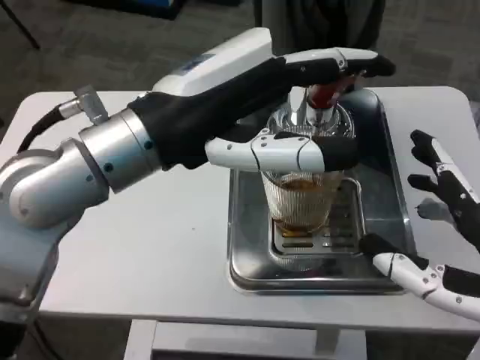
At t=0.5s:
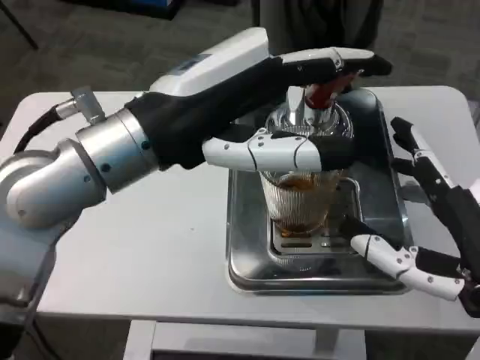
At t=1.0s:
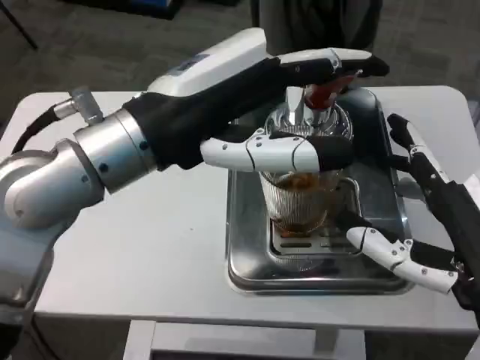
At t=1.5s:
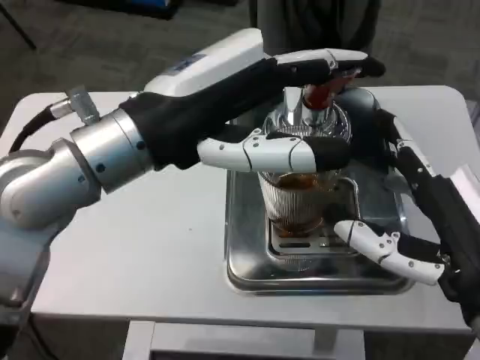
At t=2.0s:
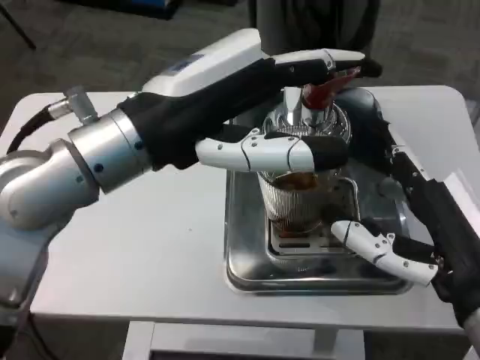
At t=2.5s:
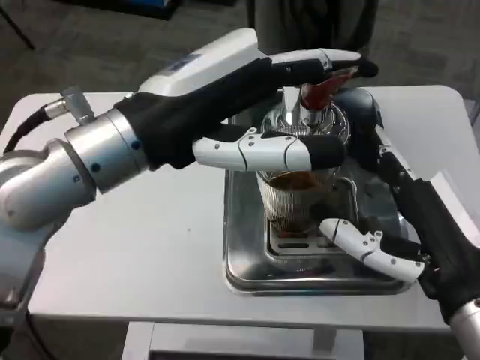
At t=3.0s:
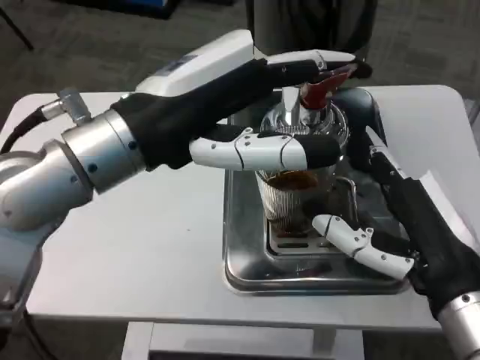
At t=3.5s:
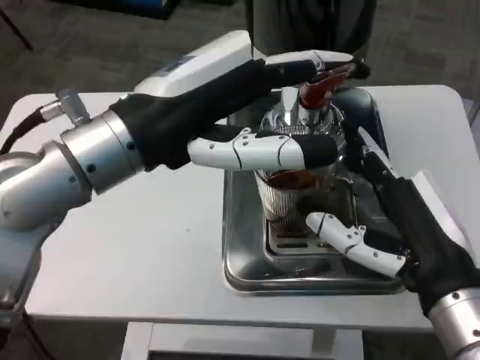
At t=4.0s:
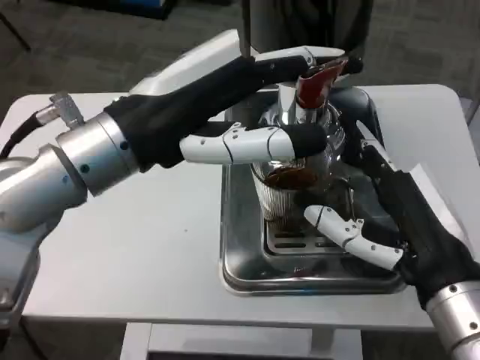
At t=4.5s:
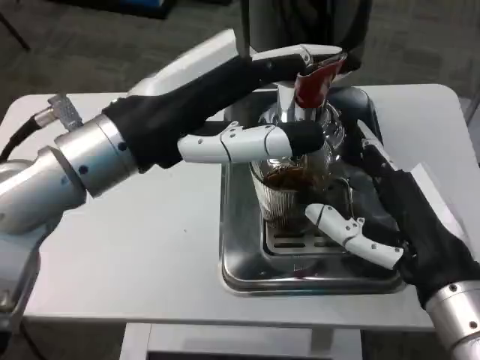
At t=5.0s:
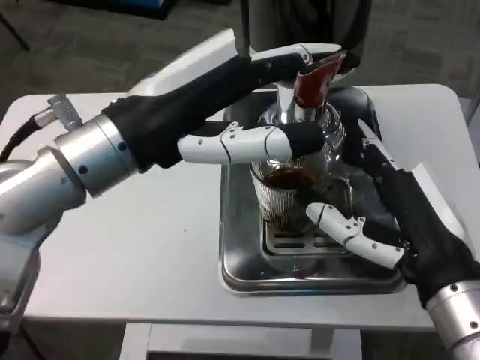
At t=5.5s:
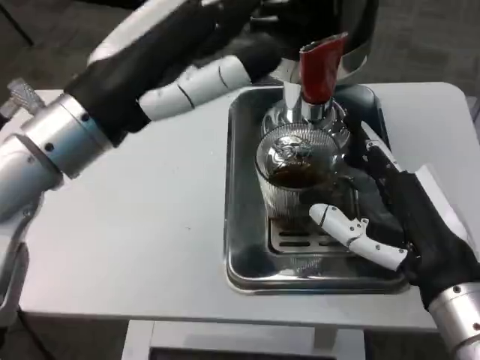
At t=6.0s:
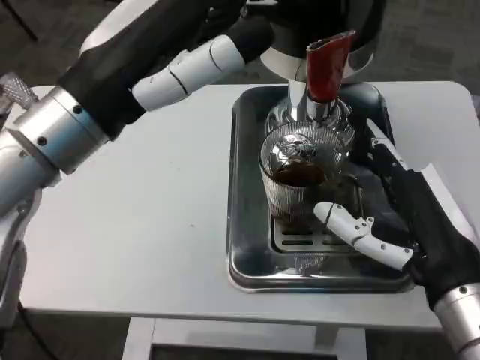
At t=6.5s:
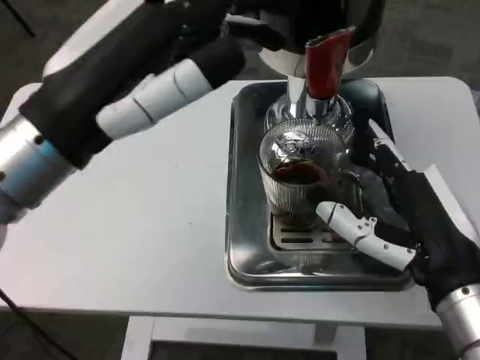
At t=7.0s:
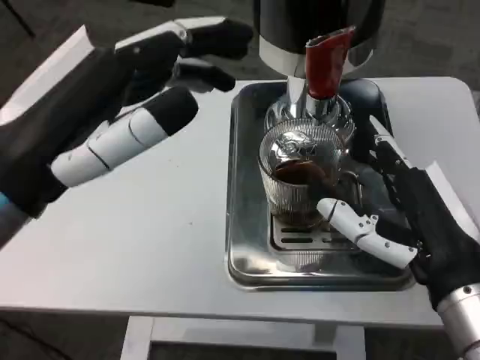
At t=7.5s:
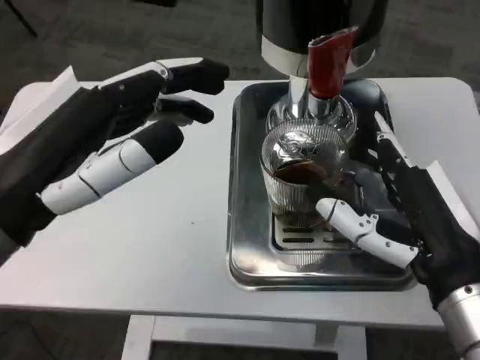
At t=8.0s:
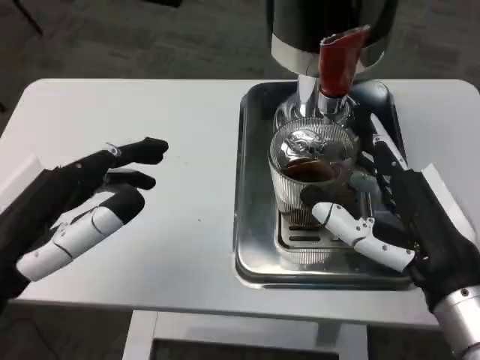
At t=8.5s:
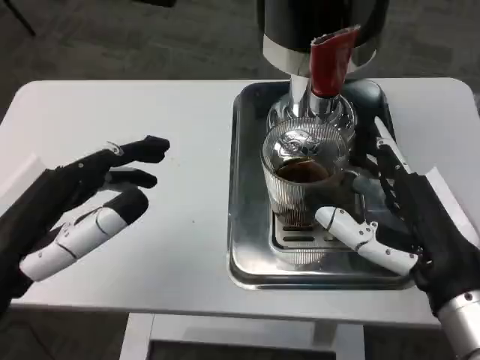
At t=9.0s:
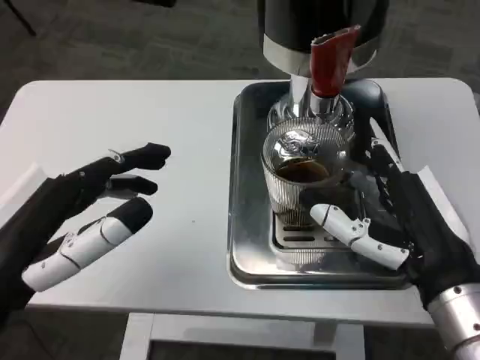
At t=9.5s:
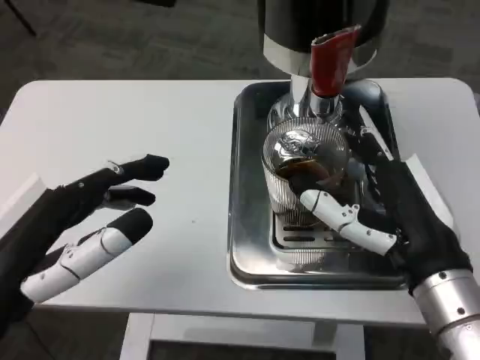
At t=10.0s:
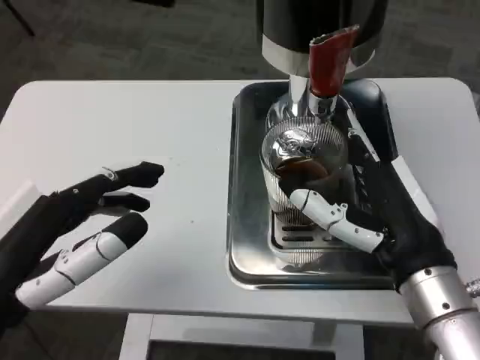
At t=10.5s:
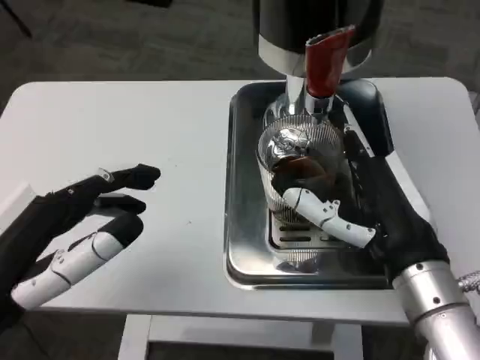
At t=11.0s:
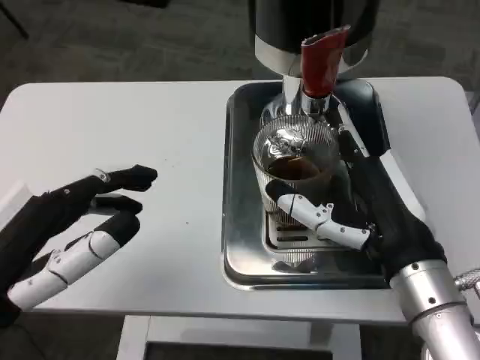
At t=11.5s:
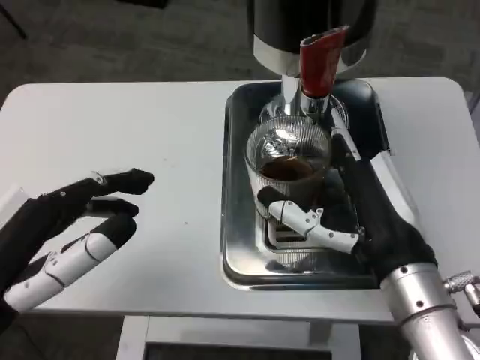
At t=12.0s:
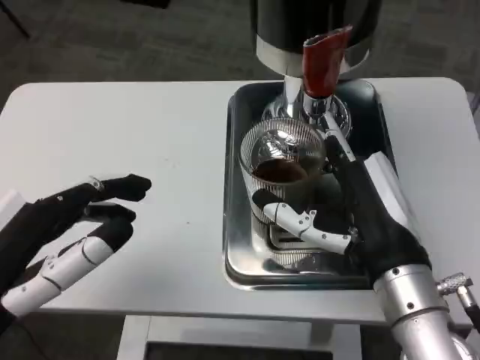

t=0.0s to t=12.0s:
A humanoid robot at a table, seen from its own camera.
Task of the whole recording: Grasp the cup under the faucet to collect the drink, then remove the cup.
t=6.0s to t=8.0s: The left hand travels downward, backward and to the left by approximately 15 cm.

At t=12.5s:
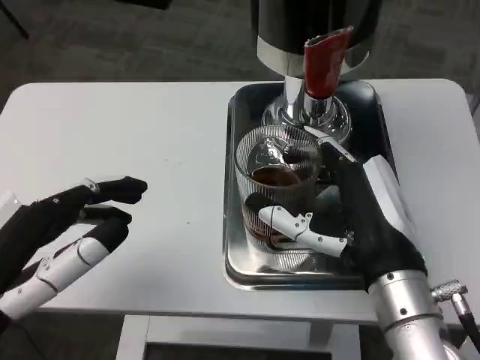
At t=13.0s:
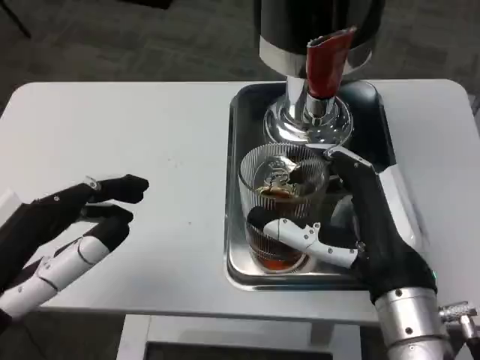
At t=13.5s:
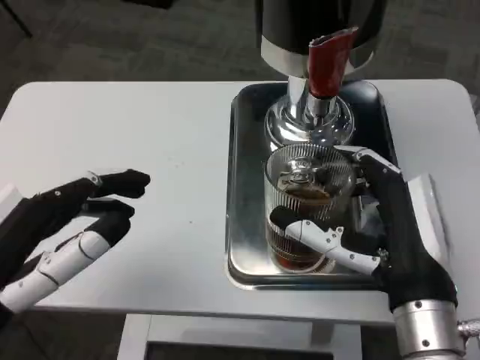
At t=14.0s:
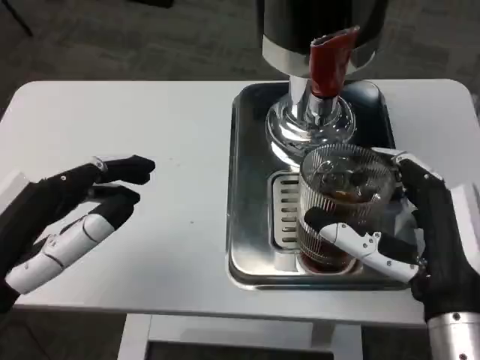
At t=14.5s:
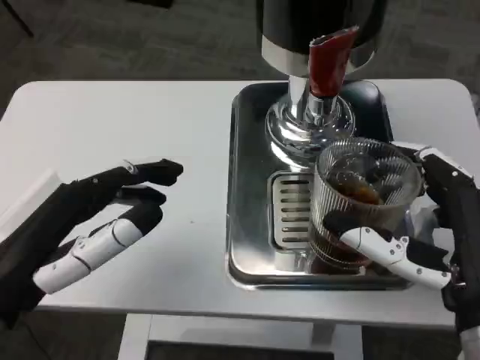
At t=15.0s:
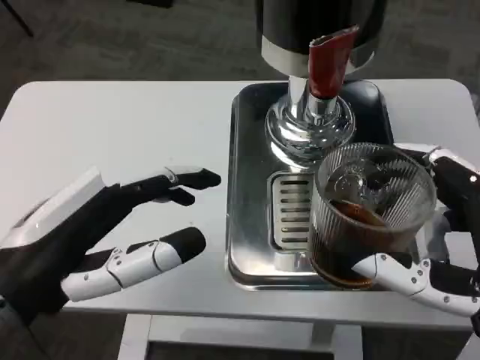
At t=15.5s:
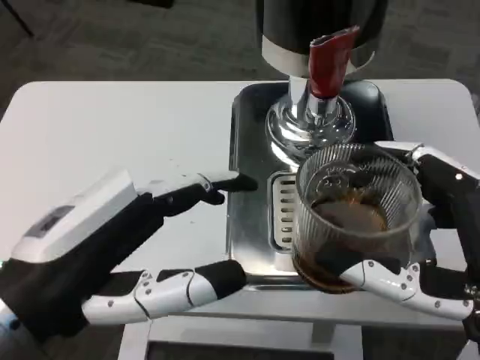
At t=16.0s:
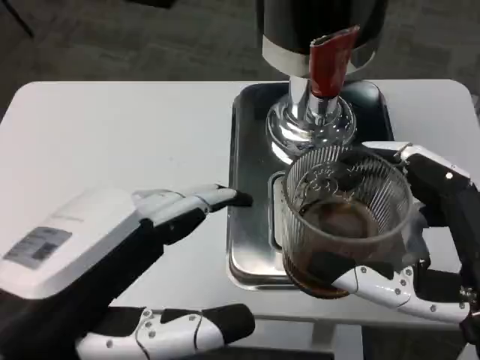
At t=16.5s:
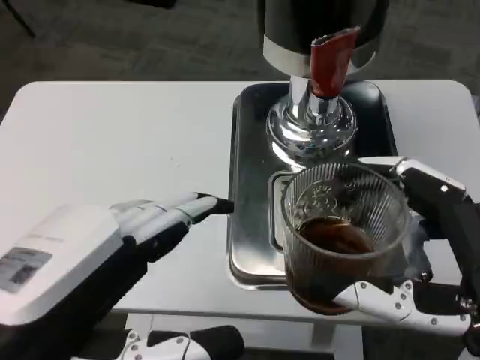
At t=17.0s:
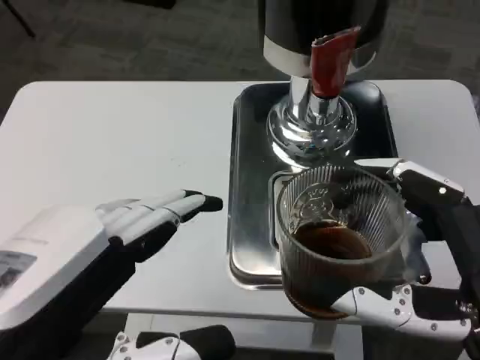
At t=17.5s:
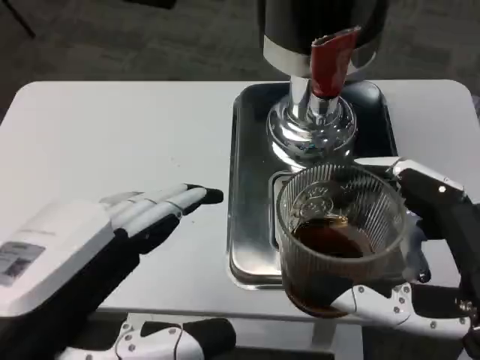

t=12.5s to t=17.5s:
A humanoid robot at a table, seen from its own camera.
Task of the whole recording: Grasp the cup under the faucet to collect the drink, then remove the cup.
t=12.5s to t=15.0s: The right hand heads backward and to the right, covering roughly 10 cm.
t=15.0s to t=17.5s: The left hand goes roughly 5 cm backward.

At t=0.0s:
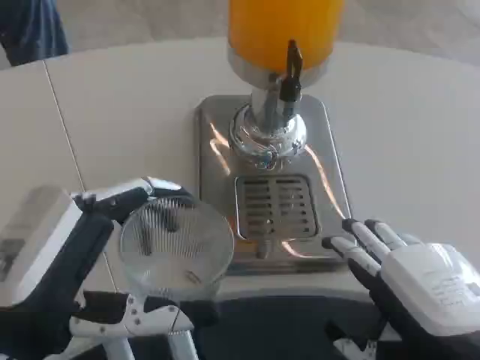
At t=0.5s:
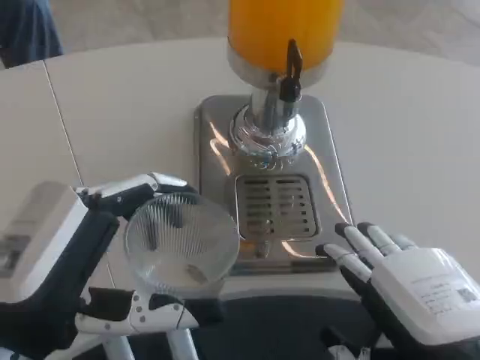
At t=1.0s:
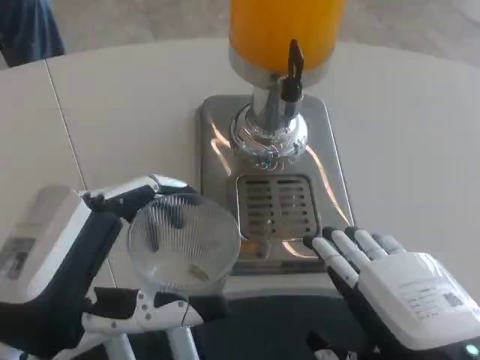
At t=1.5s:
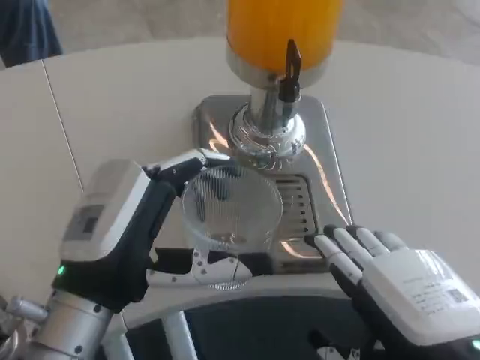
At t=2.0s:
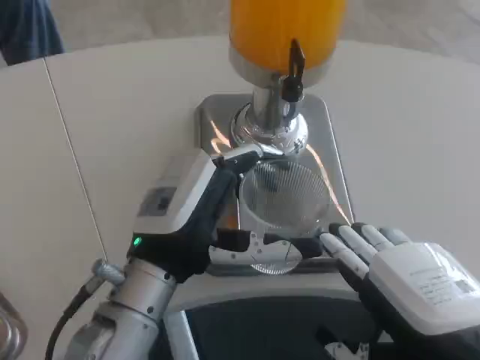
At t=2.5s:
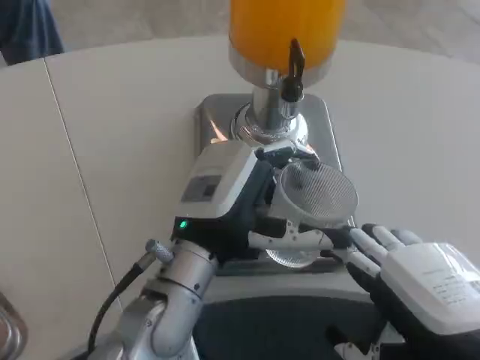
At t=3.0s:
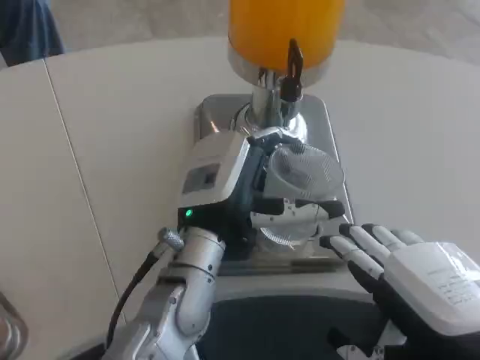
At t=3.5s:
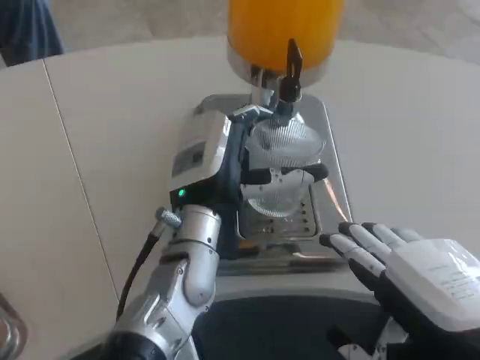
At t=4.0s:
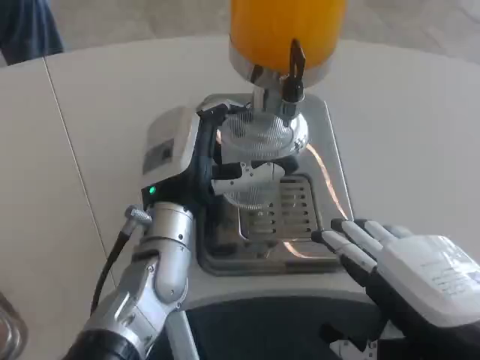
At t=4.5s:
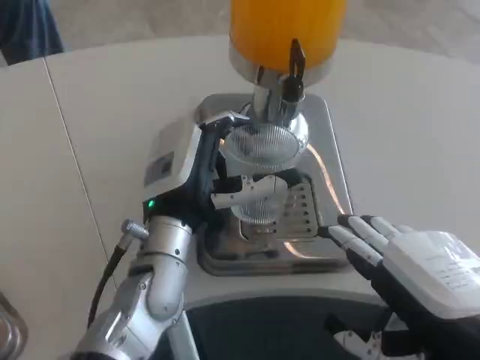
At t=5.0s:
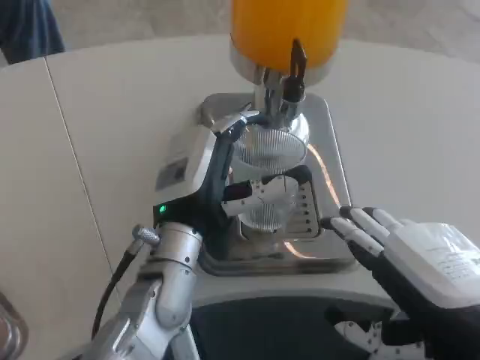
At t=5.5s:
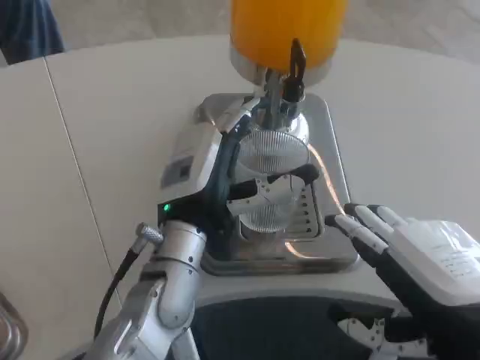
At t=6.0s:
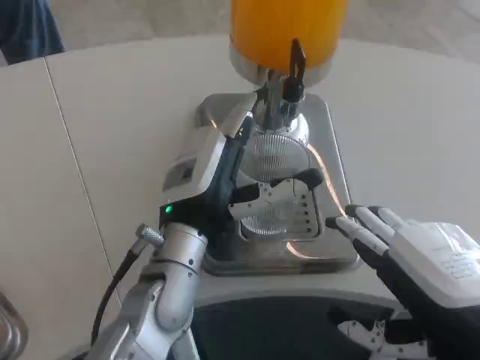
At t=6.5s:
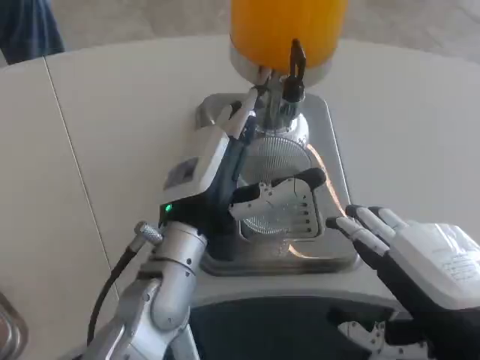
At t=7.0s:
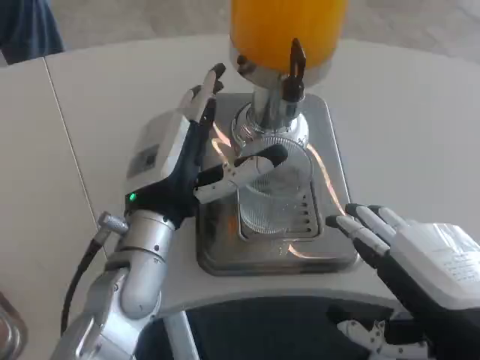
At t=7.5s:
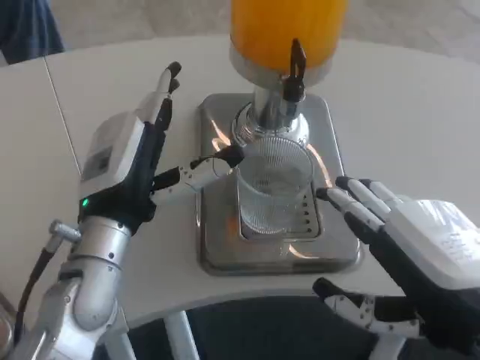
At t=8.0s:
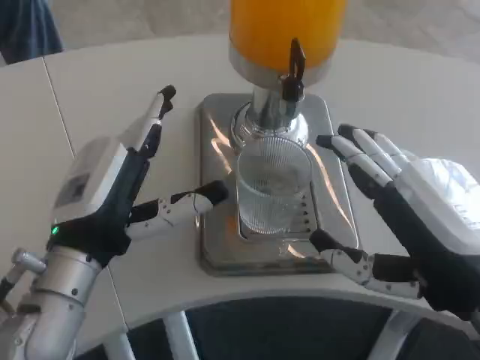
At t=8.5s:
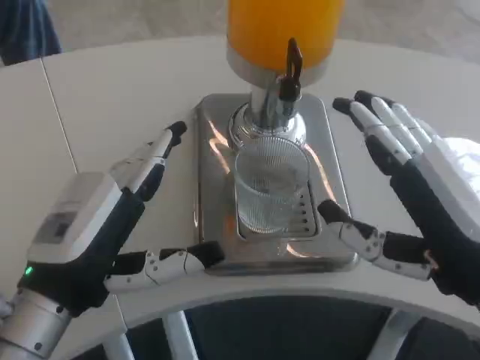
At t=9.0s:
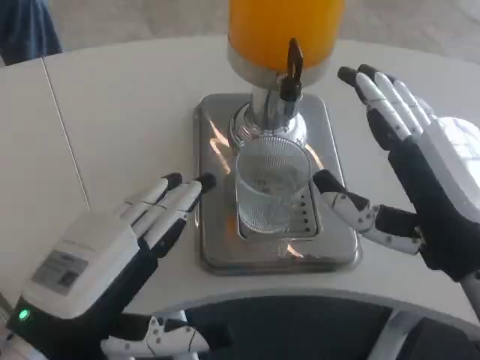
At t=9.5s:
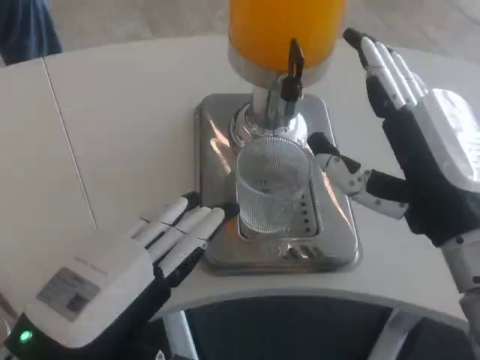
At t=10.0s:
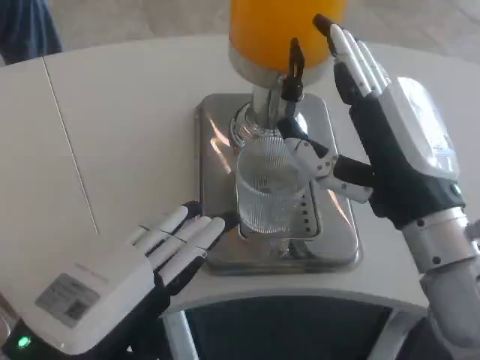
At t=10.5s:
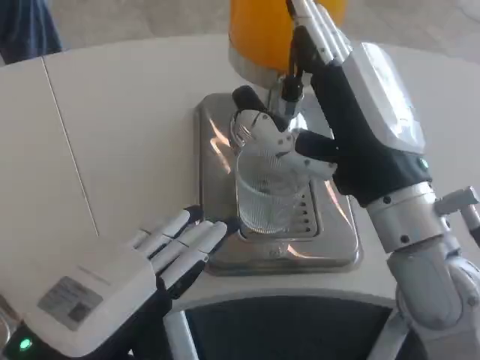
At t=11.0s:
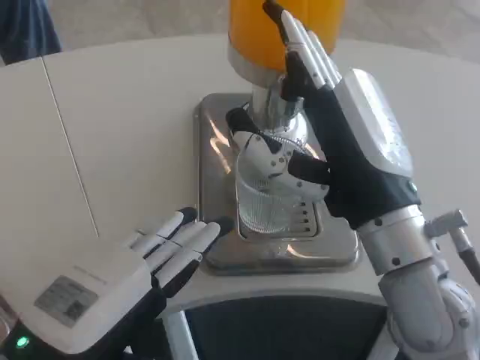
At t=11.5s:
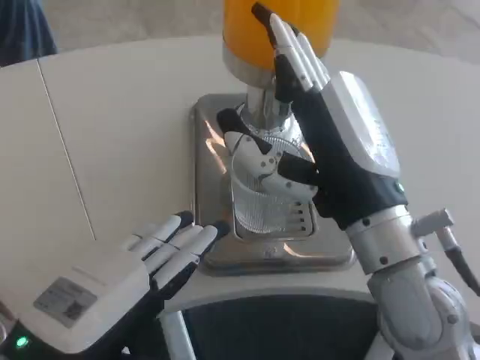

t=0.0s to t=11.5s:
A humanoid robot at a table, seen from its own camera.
Task of the whole recording: Grasp the cup under the faucet to collect the drink, then remove the cup.
t=0.0s to t=2.0s: The left hand heads forward and to the right, covering roughly 15 cm.
t=2.0s to t=4.0s: The left hand is displaced forward by approximately 10 cm.
t=6.0s to t=7.5s: The left hand heads to the left, covering roughly 5 cm.
t=7.5s to t=9.5s: The left hand travels backward by roughly 15 cm. Meanwhile the right hand shifts roughly 5 cm forward.
t=9.5s to t=11.5s: The right hand goes roughly 5 cm to the left.
